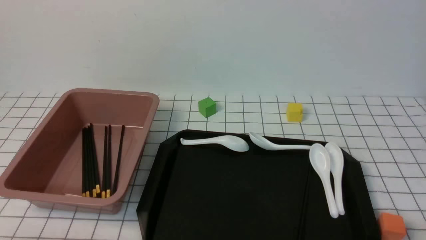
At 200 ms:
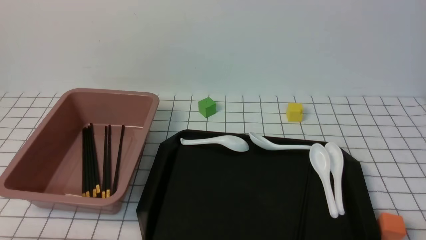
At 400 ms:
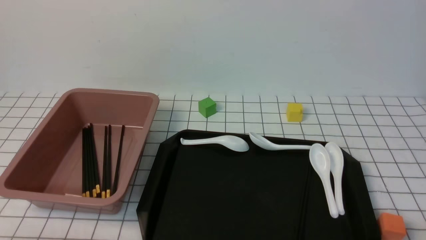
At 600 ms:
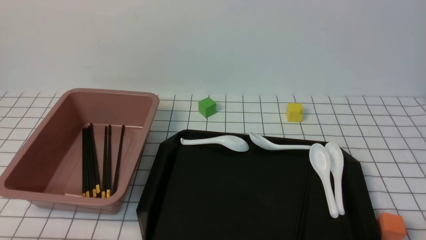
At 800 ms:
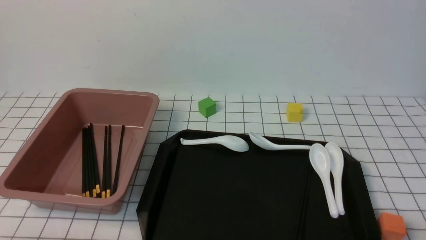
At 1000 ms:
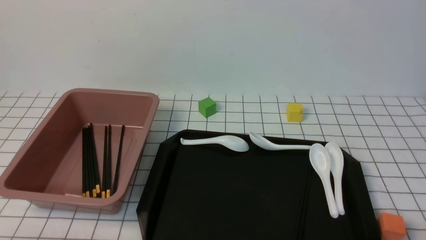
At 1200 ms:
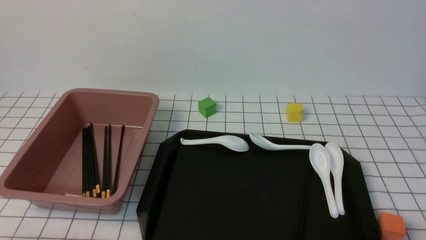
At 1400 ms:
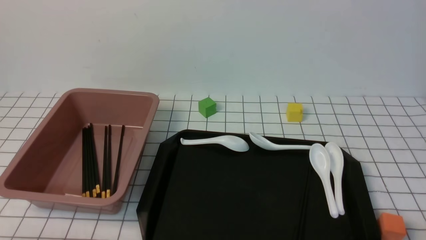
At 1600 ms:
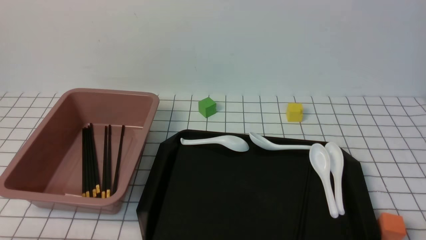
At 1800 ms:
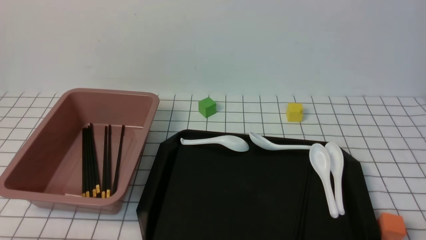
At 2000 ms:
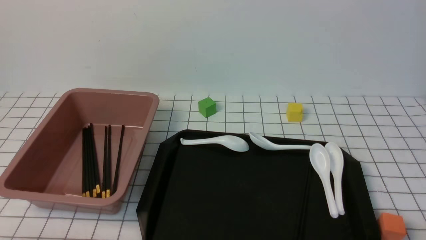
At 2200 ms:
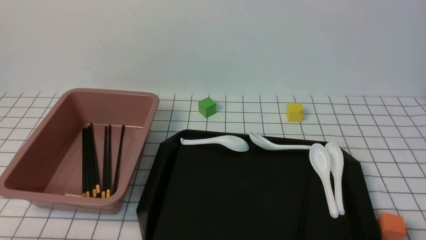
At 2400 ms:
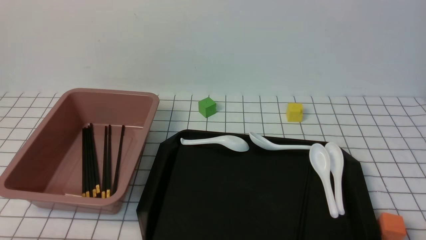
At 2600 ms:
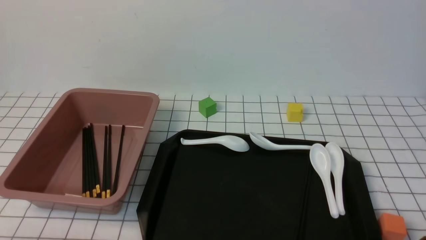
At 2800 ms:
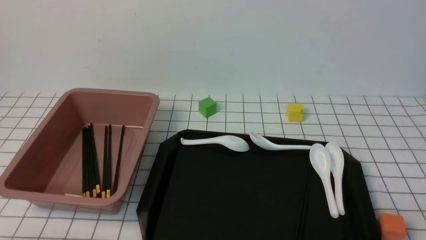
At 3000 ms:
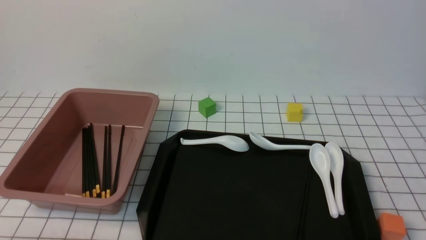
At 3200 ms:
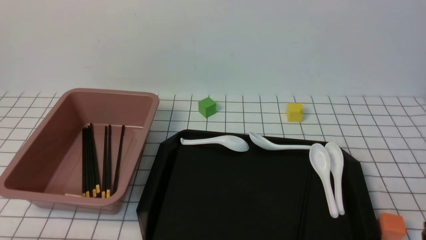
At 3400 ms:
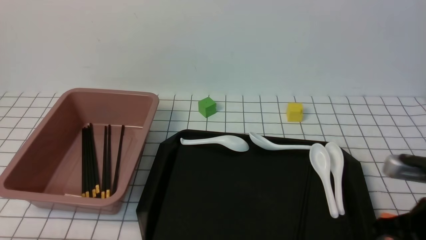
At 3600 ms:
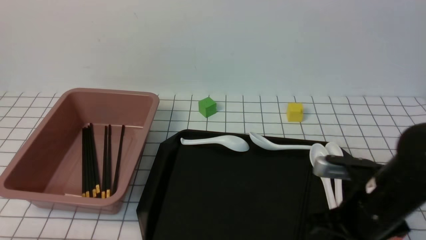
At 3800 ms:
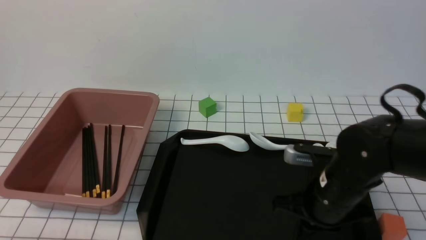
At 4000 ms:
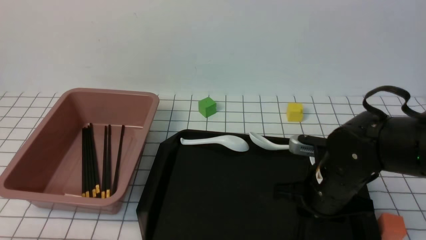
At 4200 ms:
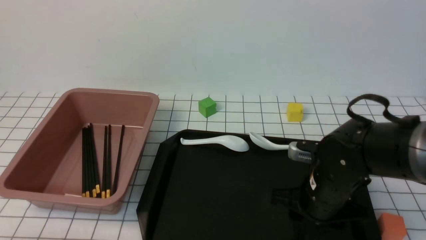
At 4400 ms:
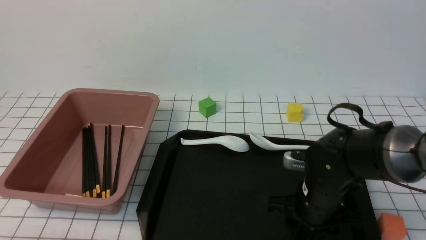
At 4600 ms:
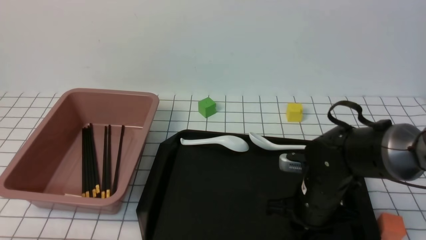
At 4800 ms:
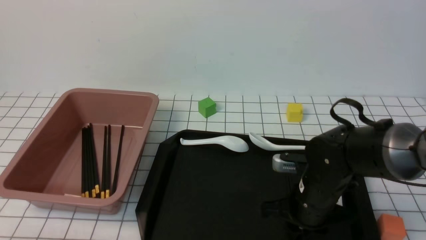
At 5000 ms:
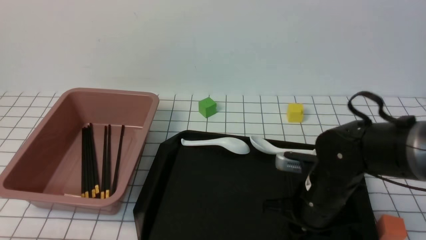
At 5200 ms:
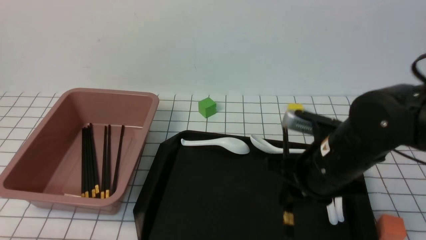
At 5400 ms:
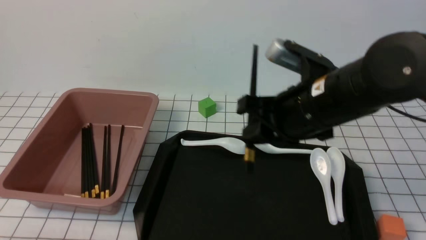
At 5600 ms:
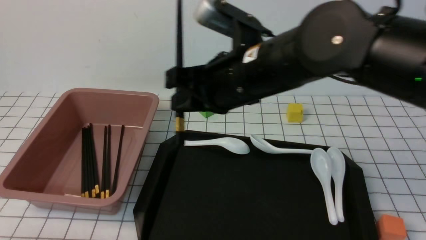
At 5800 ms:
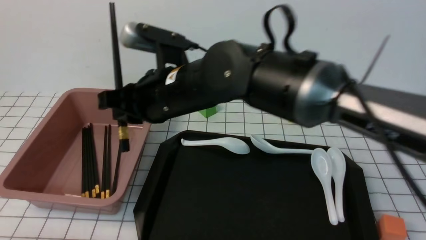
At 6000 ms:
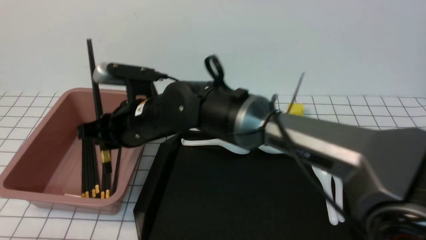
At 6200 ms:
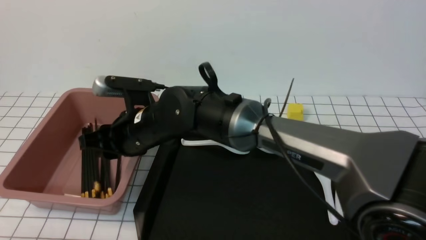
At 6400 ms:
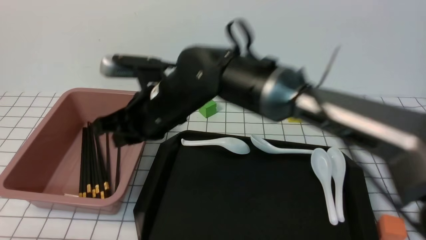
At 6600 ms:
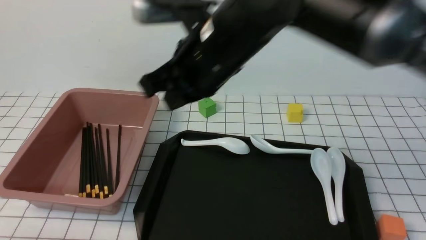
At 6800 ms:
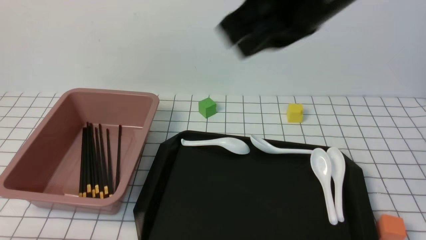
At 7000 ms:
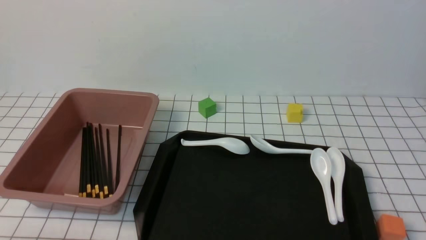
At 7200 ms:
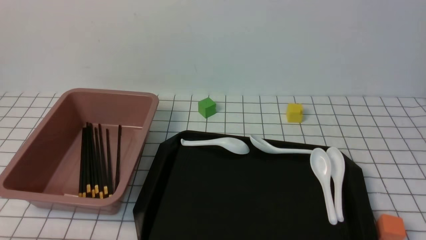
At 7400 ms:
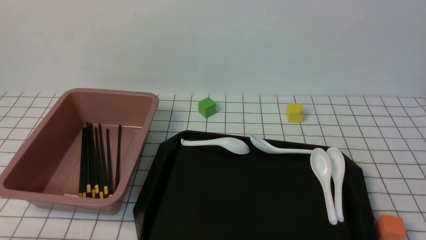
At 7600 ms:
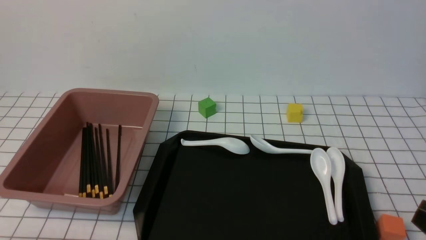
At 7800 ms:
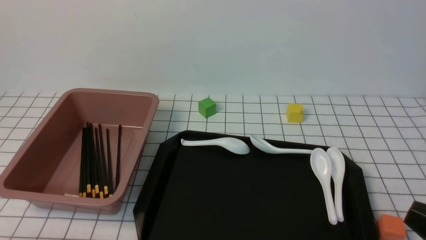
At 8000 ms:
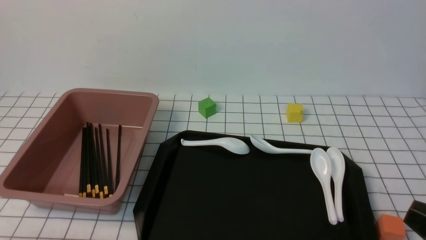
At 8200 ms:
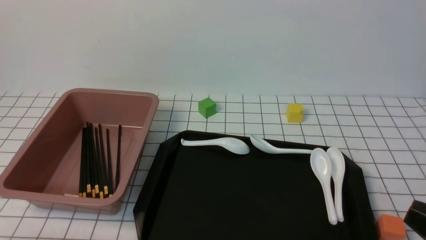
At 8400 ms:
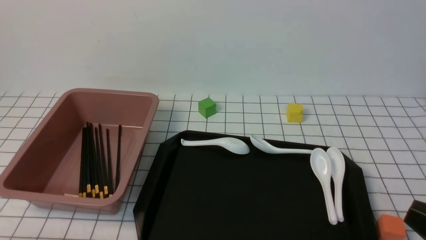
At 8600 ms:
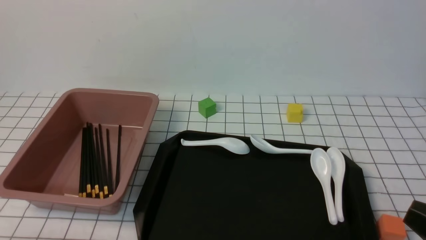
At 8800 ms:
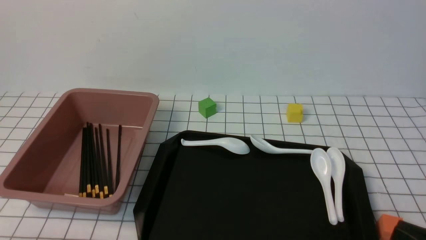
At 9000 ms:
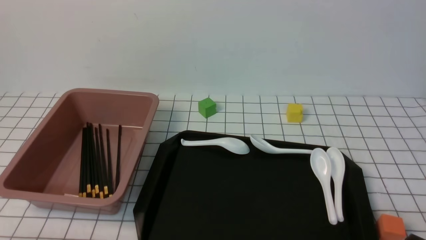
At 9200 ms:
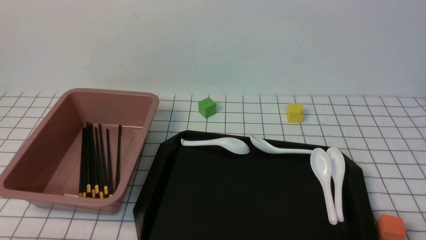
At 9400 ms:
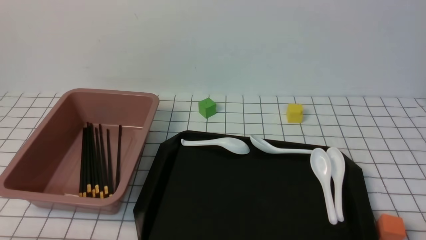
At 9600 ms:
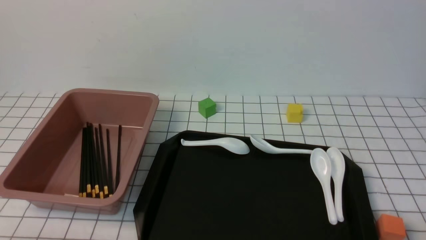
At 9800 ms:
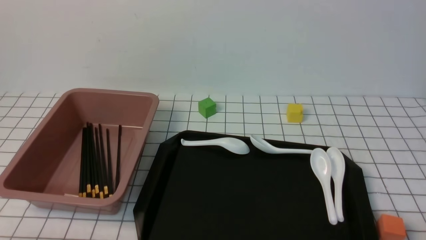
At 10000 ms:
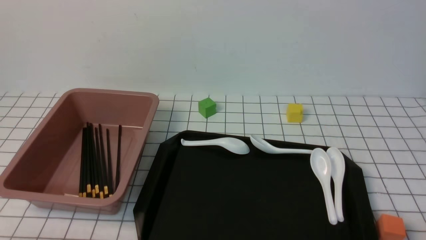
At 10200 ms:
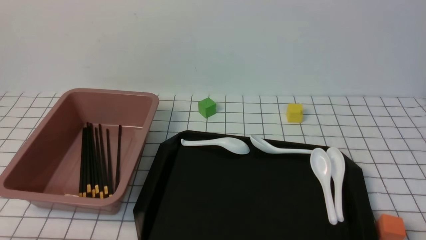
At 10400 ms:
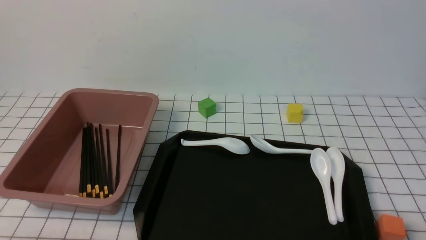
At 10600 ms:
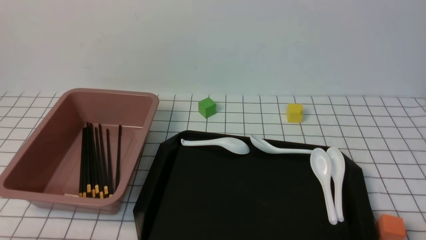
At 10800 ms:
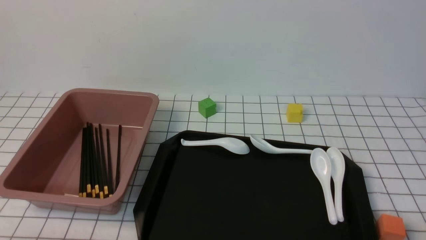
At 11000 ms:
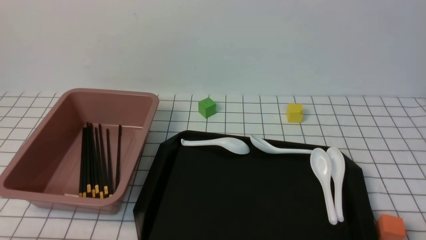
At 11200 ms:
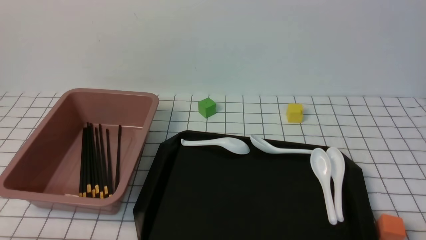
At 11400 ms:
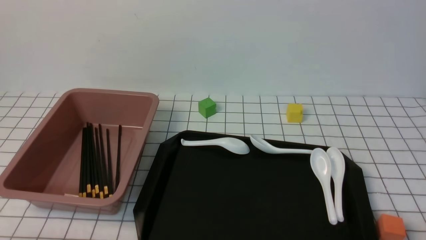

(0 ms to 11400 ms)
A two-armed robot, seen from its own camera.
Step, 0 ms - 5400 ms: use the right arm to grab a pair of chopsticks.
Step, 5600 ms - 6600 ms: use the right arm to put the chopsticks into the lunch box.
0 ms - 1400 ms: Neither gripper changes place.
2800 ms - 4200 ms: The right gripper heads forward and to the left, covering roughly 25 cm, and opens up.
4200 ms - 5600 ms: The right gripper travels upward and to the left by roughly 20 cm, and closes its fingers.
5600 ms - 7200 ms: The right gripper is displaced backward, to the right and upward by some 35 cm, and closes.
7200 ms - 8600 ms: The right gripper is displaced downward by roughly 20 cm.
8600 ms - 10000 ms: The right gripper is displaced downward by about 10 cm.
10000 ms - 11400 ms: Both grippers stay about where they are.
